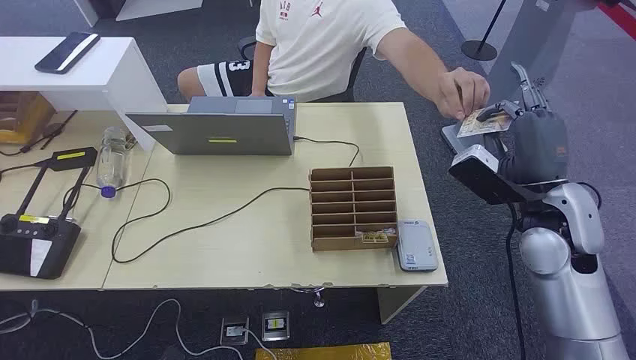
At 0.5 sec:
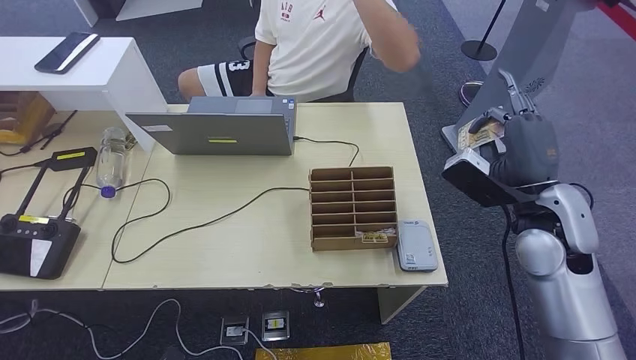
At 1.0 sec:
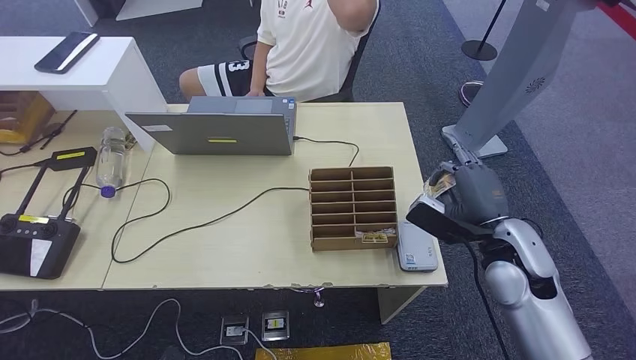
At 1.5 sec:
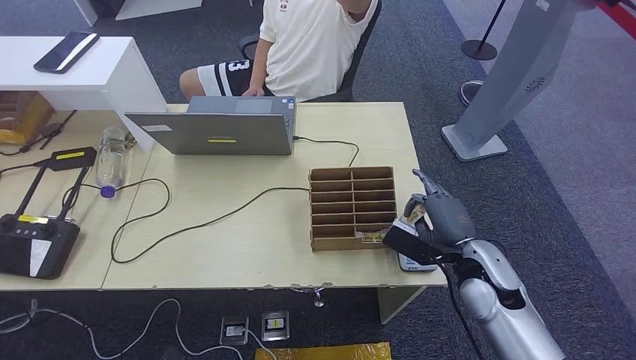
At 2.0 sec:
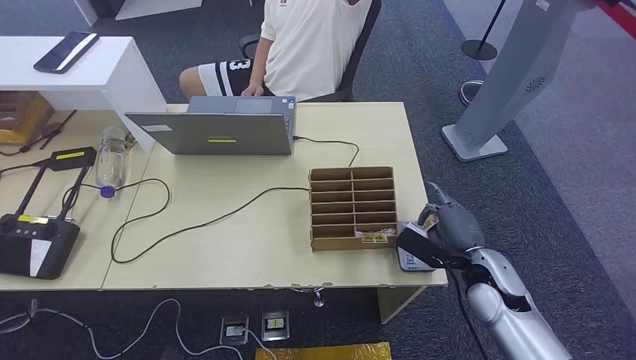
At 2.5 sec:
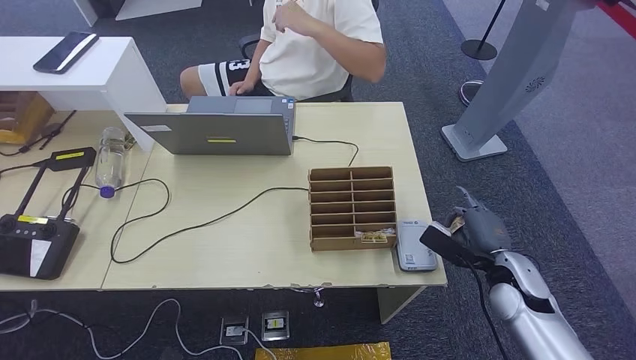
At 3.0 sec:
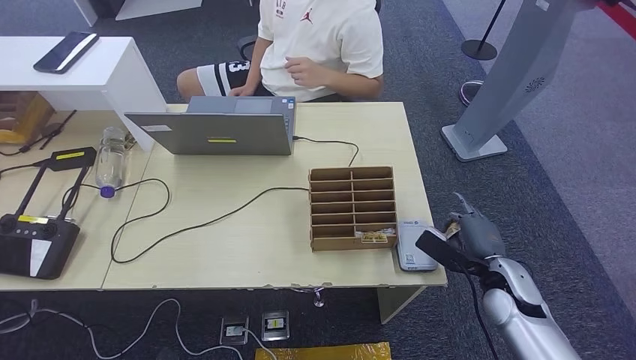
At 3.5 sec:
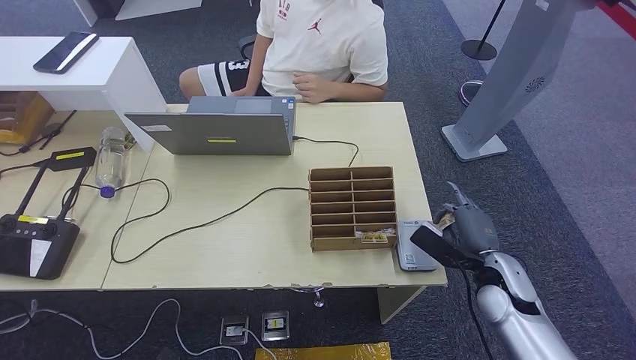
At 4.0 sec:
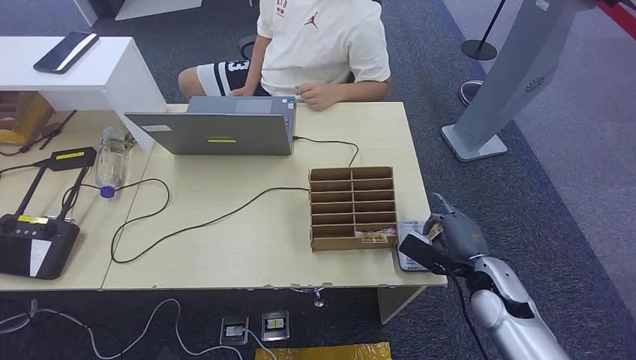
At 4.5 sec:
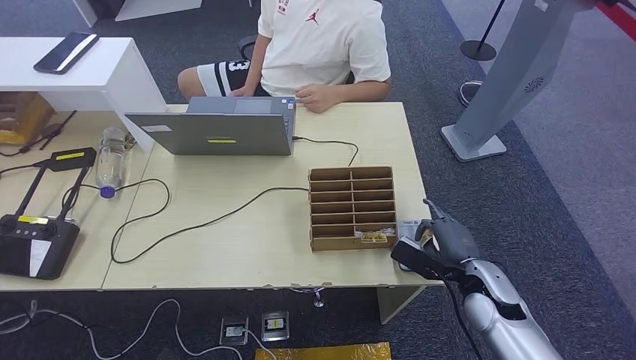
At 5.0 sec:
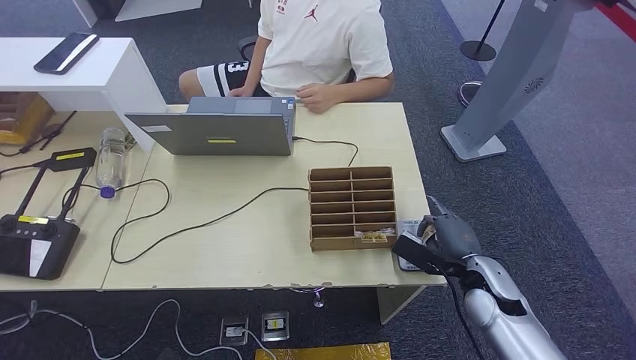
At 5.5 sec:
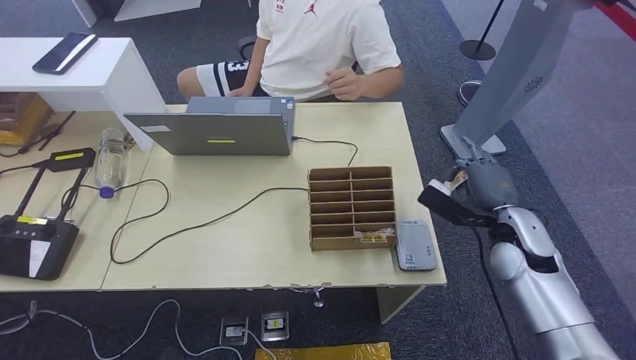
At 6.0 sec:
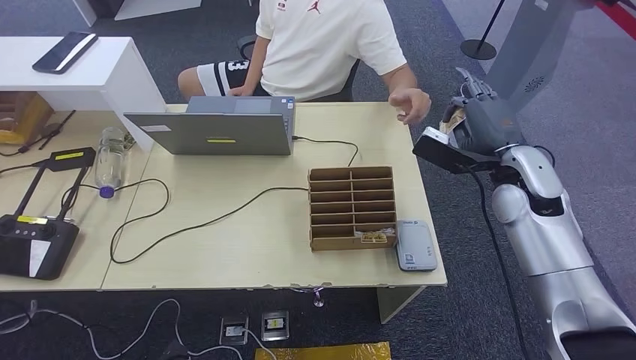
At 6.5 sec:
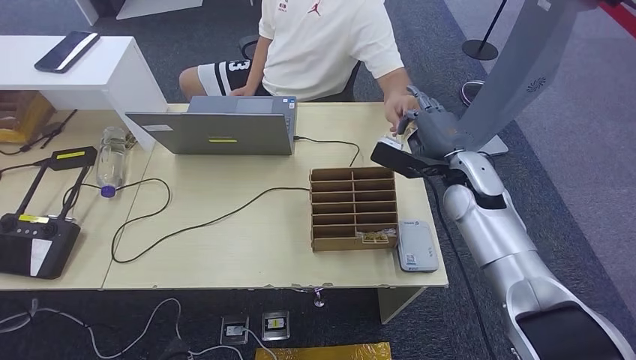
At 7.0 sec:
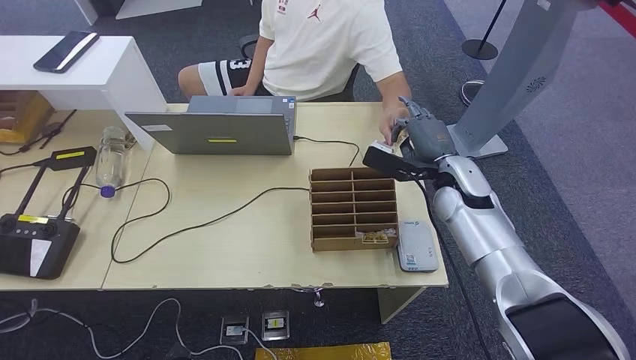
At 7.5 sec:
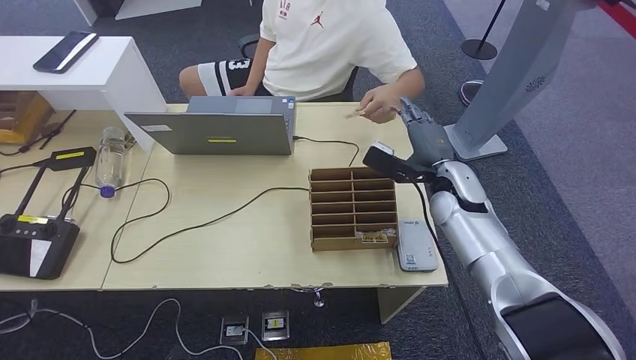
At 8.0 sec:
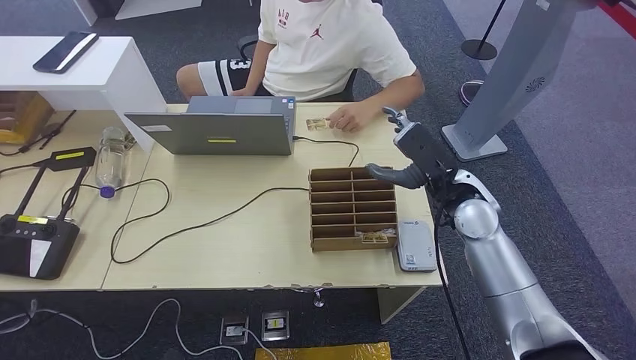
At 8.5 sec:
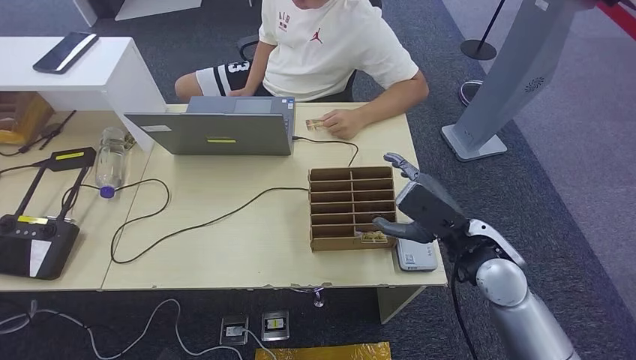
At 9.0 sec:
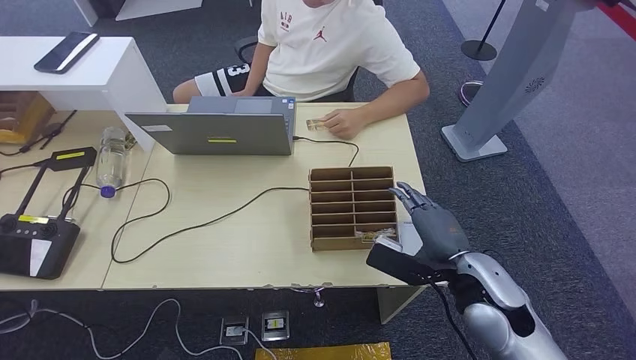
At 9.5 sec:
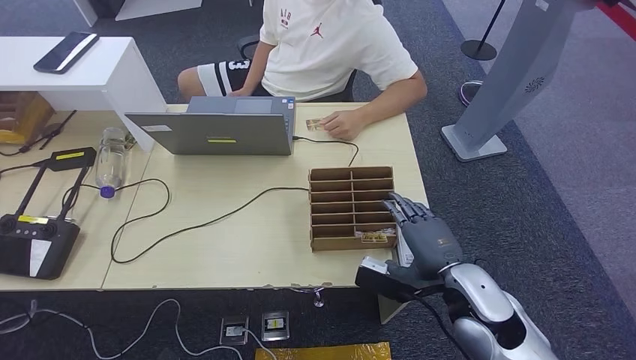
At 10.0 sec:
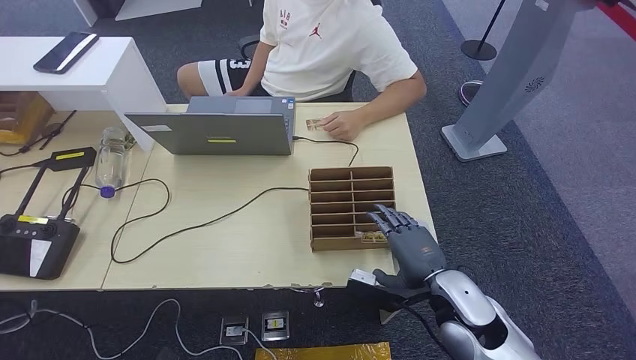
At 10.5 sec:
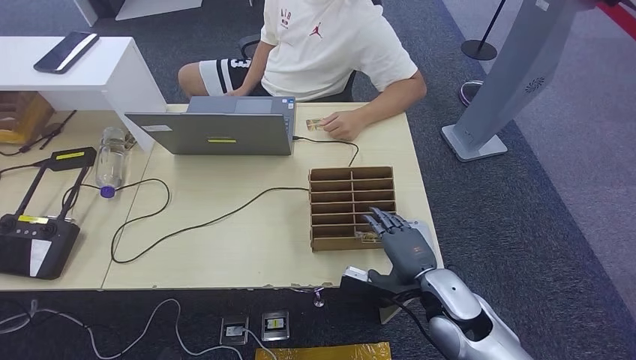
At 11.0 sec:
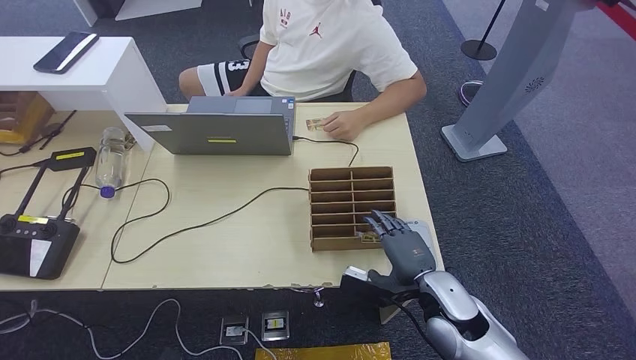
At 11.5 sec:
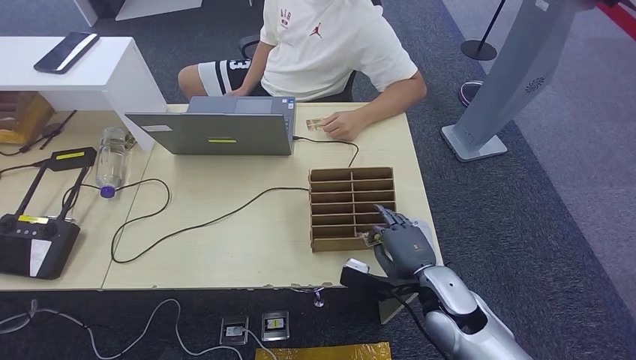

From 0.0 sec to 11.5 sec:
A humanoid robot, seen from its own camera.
Step, from 0.0 sec to 1.0 sec: Take the ID card from the person's hand.
Step, from 1.5 sec to 2.5 sec: Place the ID card on the card reader.
Step, from 5.5 sec to 6.5 sec: Hand the ID card to the person.
From 2.0 sec to 4.0 sec: There are only small adjustments of the hands.
From 4.0 sec to 6.0 sec: The right hand shifts some 20 cm upward and forward.
From 6.0 sec to 7.5 sec: The right hand is displaced to the left and downward by approximately 10 cm.
From 7.5 sec to 9.5 sec: The right hand travels backward by about 20 cm.
From 9.5 sec to 11.5 sec: The right hand is displaced downward by roughly 5 cm.

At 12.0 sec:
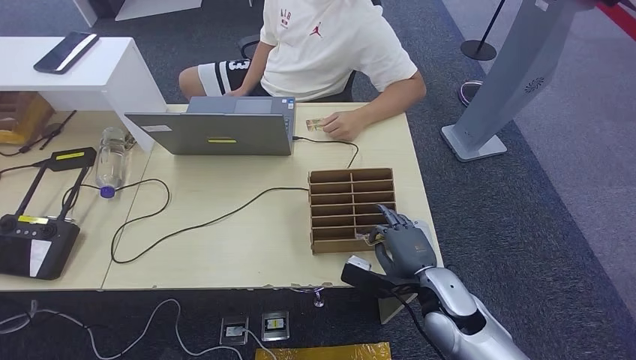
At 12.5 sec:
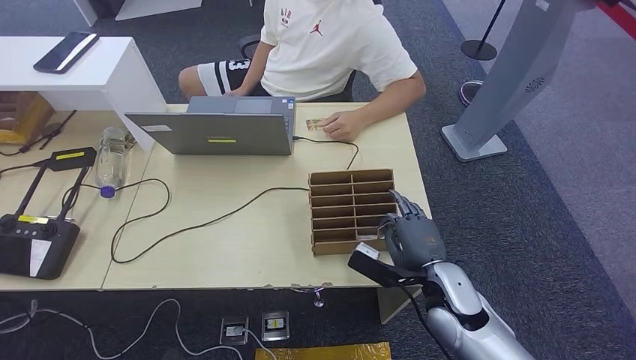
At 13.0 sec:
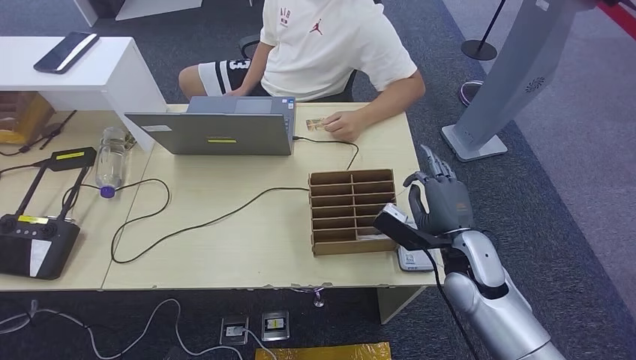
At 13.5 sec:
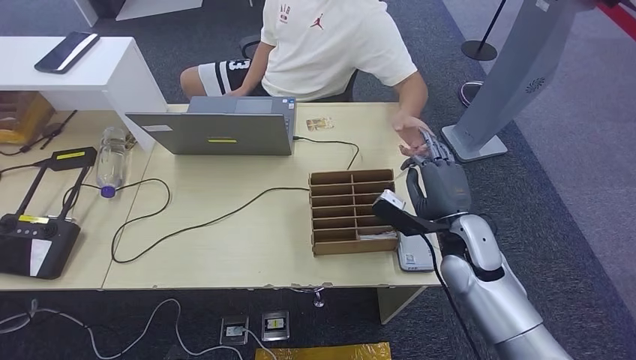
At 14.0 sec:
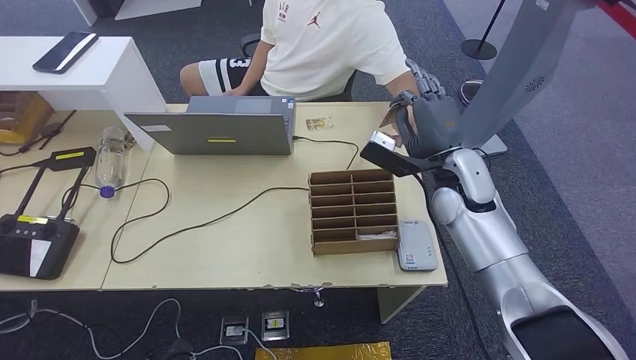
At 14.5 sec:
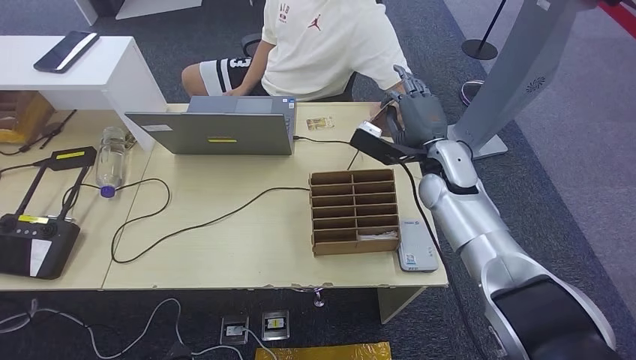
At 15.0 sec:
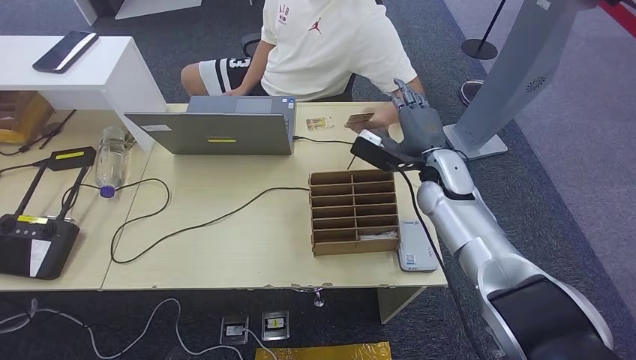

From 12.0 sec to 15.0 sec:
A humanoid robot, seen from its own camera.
Step, from 12.0 sec to 12.5 sec: Pick up the room key from the key card box.
Step, from 13.0 sec to 15.0 sec: Hand the room key to the person.
From 12.0 sec to 13.5 sec: The right hand travels forward and upward by some 10 cm.
From 13.5 sec to 15.0 sec: The right hand heads forward, covering approximately 10 cm.
